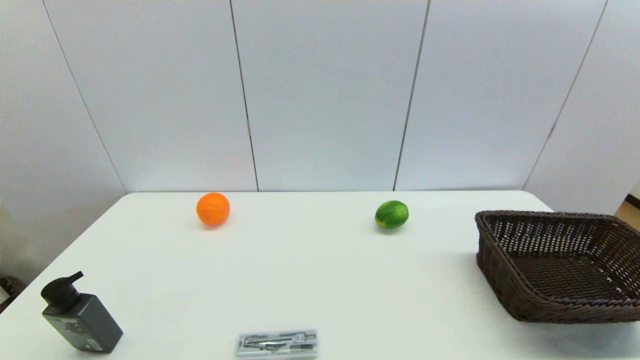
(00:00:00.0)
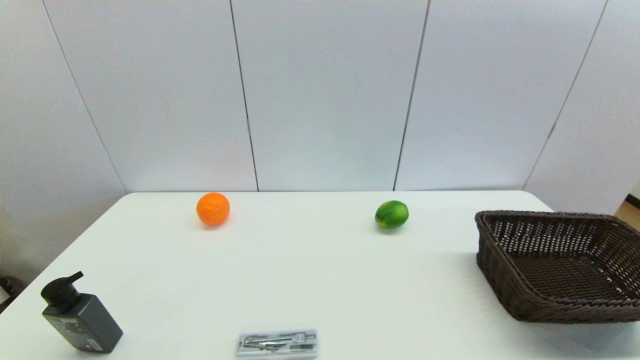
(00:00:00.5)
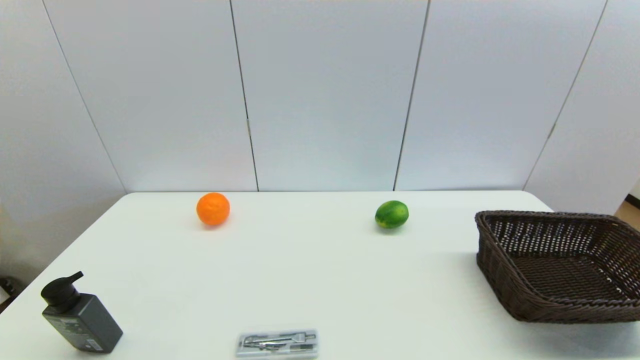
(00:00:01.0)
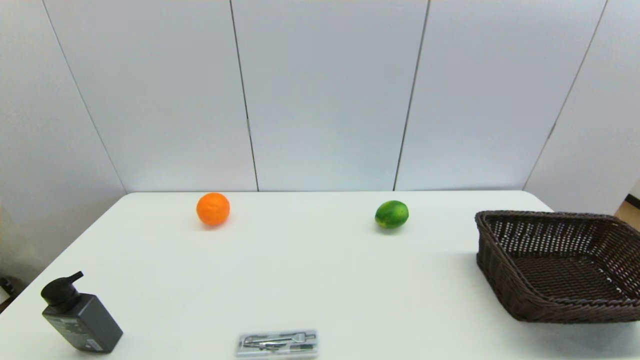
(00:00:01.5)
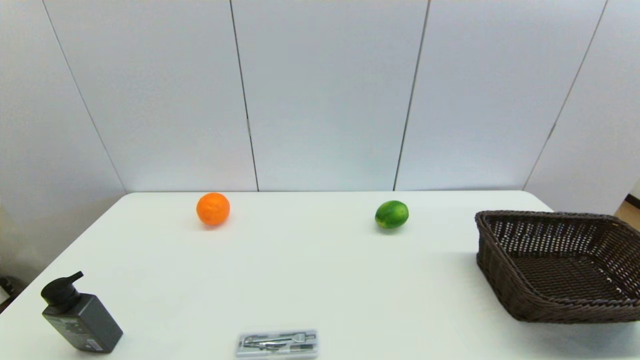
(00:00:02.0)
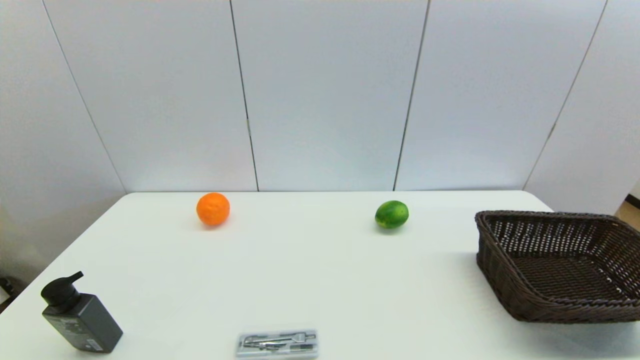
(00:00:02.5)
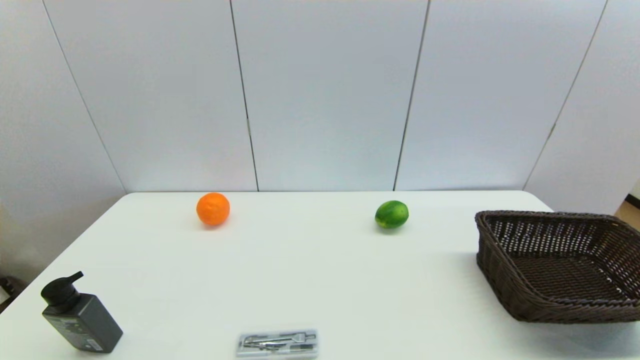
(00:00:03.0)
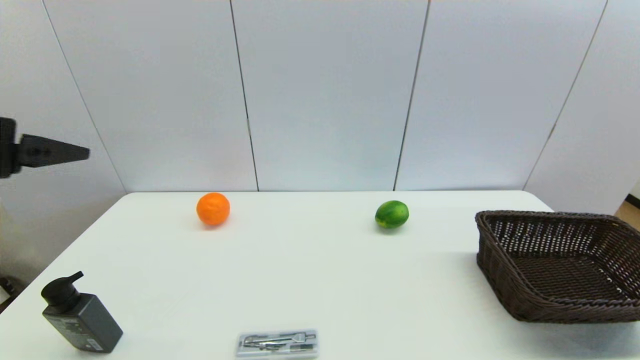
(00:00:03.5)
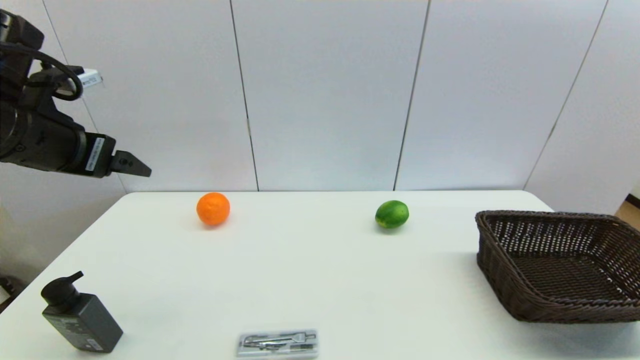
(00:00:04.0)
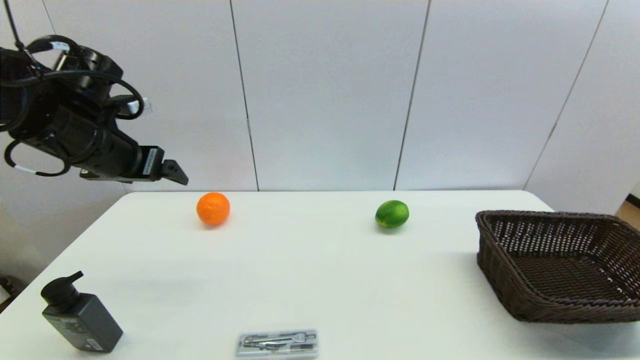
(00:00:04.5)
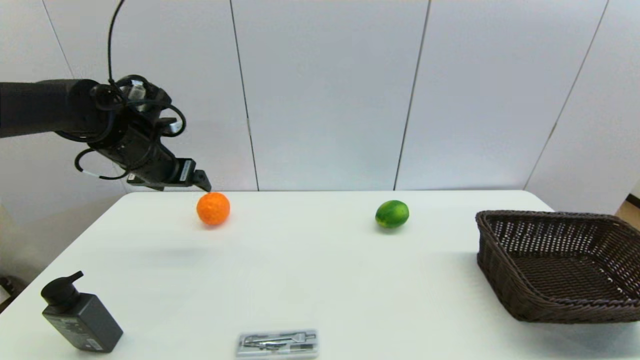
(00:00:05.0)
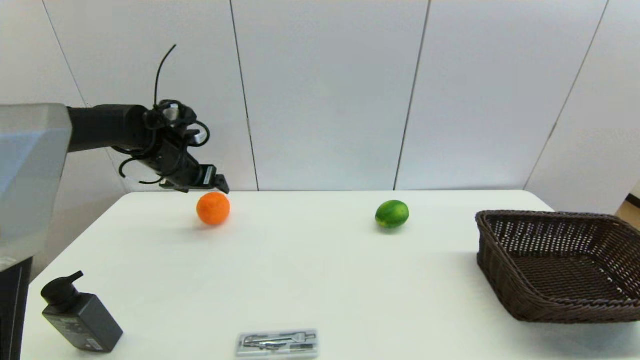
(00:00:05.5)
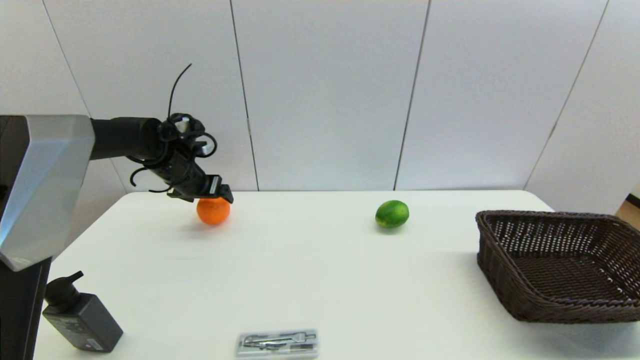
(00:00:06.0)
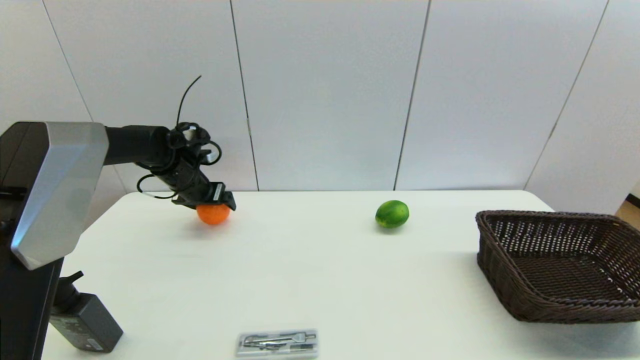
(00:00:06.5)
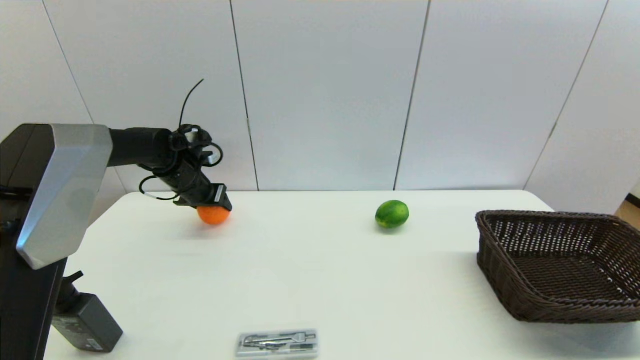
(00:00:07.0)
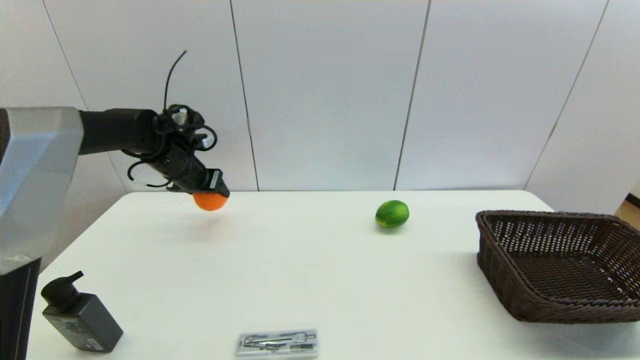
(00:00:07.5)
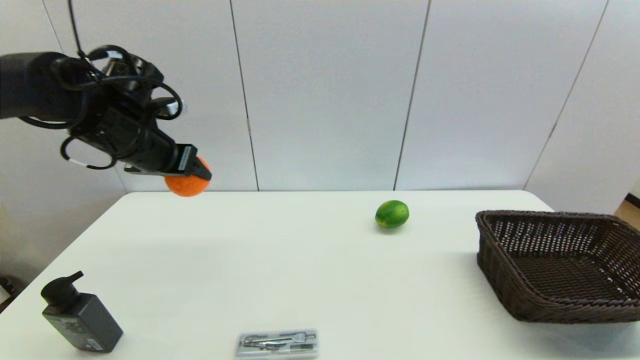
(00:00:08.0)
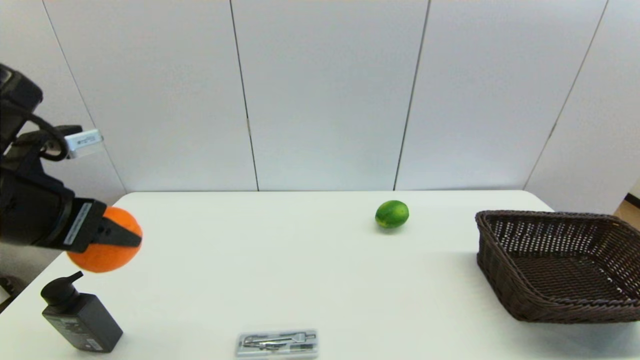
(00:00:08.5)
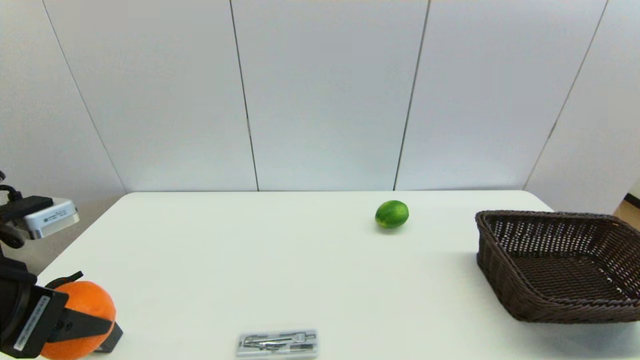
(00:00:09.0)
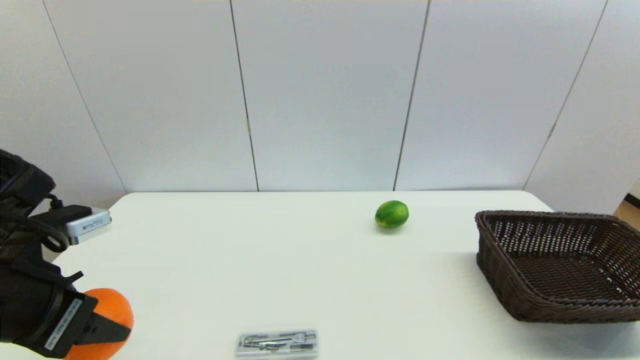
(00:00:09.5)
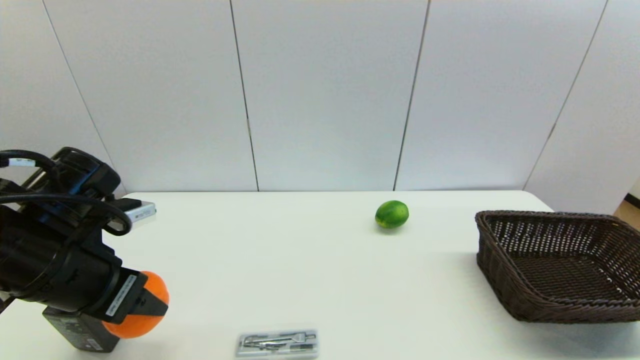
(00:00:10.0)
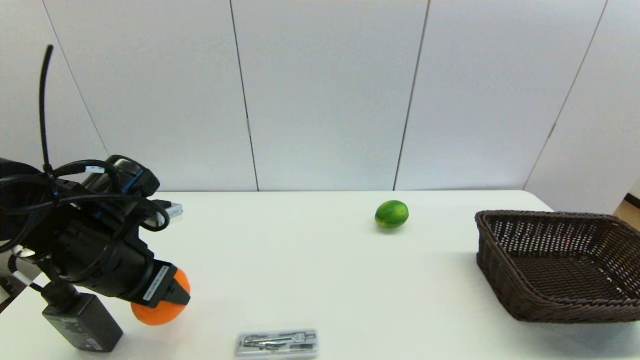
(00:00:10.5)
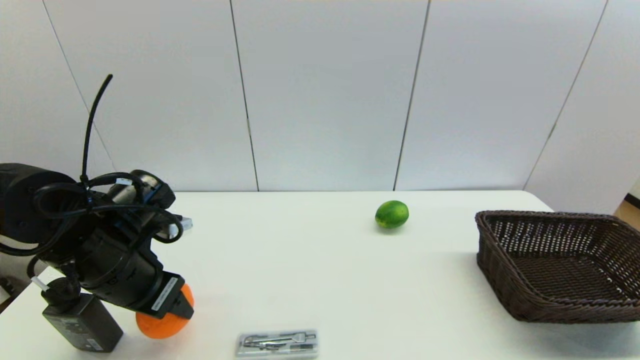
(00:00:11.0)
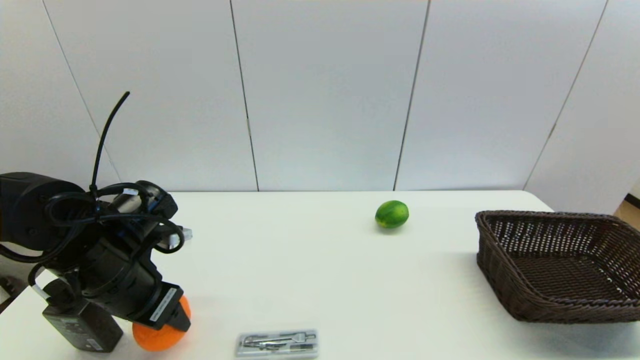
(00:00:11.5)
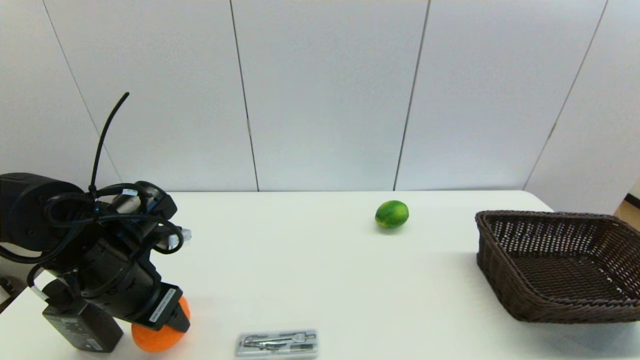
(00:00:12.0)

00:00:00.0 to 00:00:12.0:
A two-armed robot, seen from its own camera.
Step, 00:00:03.5 to 00:00:06.5: Grasp the orange with left gripper.
00:00:02.0 to 00:00:04.0: The left gripper travels forward and upward by some 35 cm.
00:00:04.0 to 00:00:06.0: The left gripper shifts approximately 25 cm forward and downward.
00:00:06.0 to 00:00:08.0: The left gripper is displaced upward and backward by roughly 15 cm, and closes its fingers.
00:00:08.0 to 00:00:10.0: The left gripper goes some 15 cm backward and downward.
00:00:10.0 to 00:00:12.0: The left gripper is displaced downward by about 5 cm.

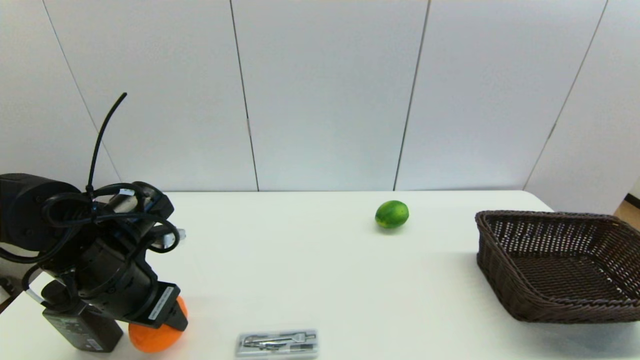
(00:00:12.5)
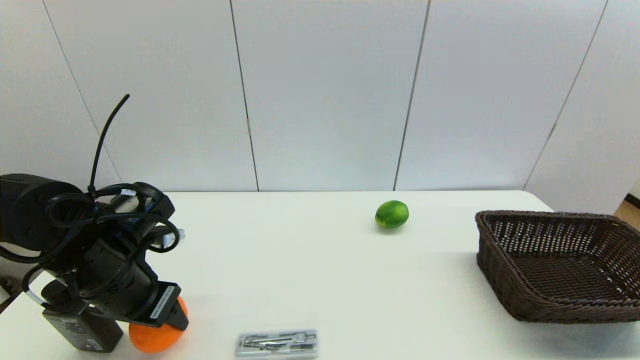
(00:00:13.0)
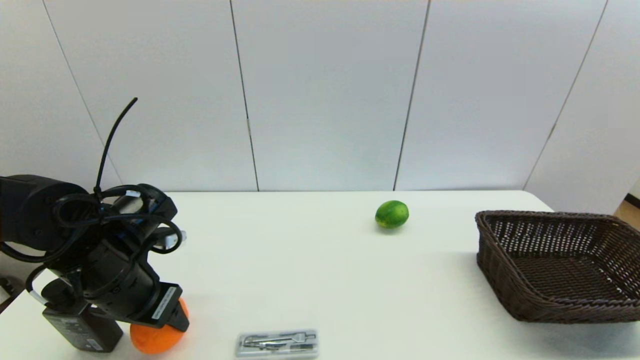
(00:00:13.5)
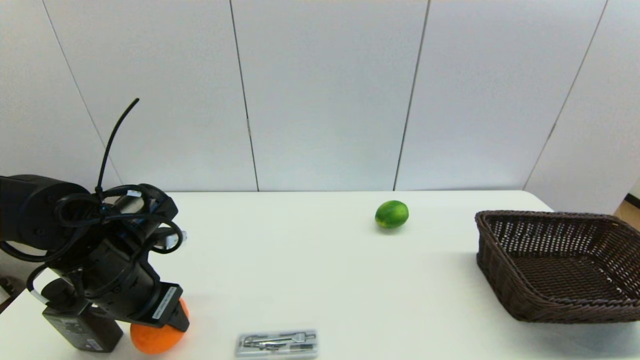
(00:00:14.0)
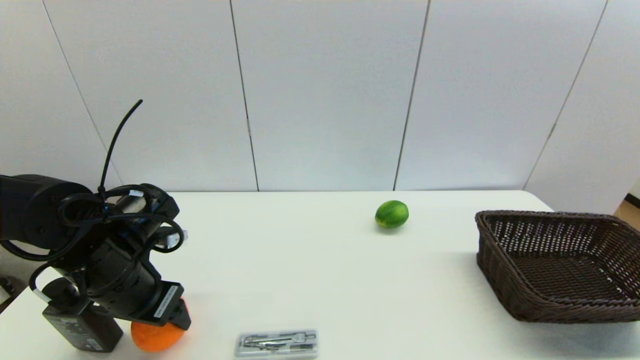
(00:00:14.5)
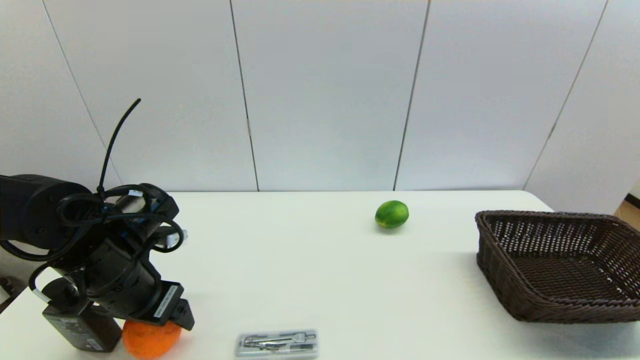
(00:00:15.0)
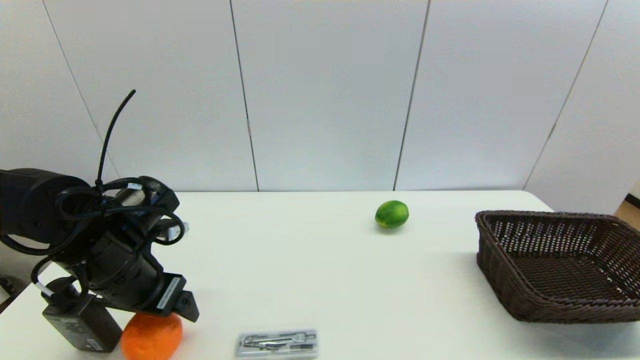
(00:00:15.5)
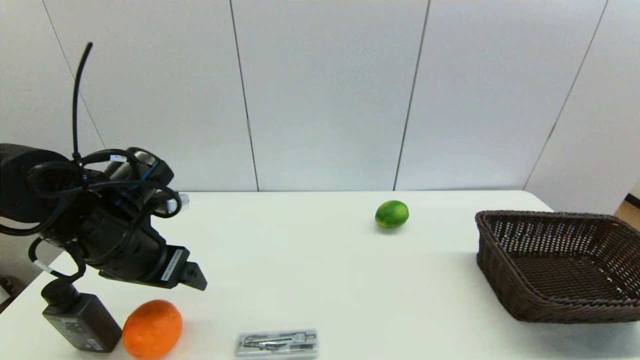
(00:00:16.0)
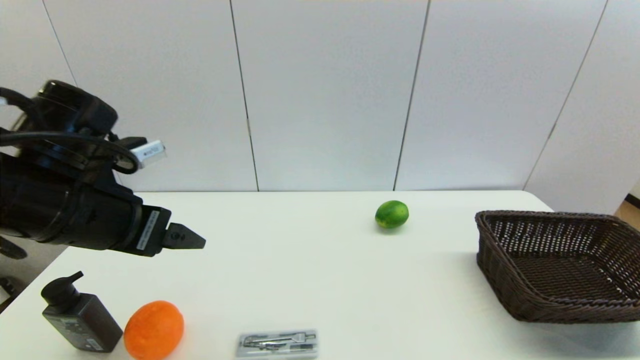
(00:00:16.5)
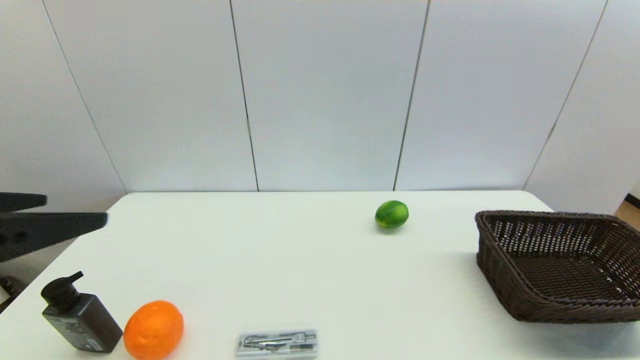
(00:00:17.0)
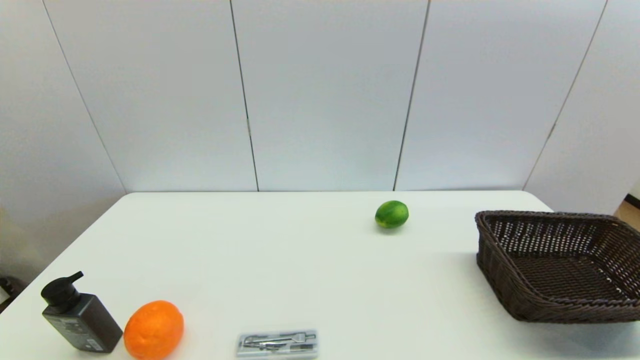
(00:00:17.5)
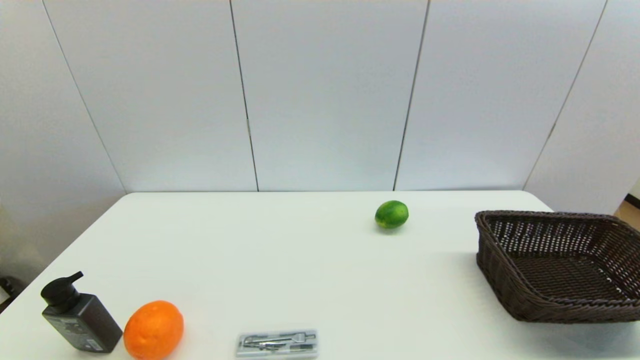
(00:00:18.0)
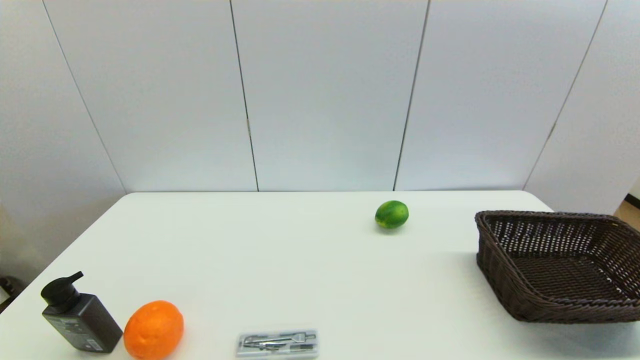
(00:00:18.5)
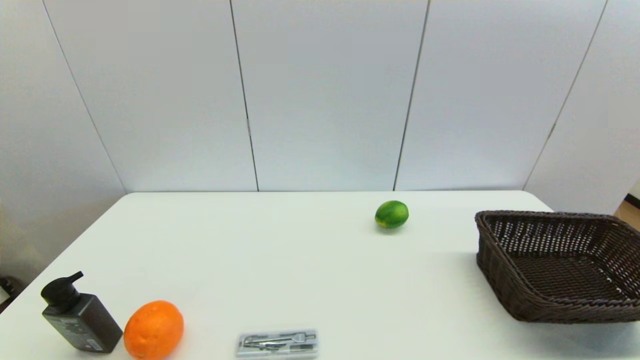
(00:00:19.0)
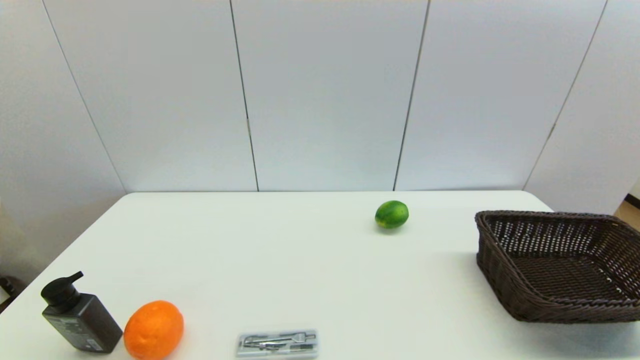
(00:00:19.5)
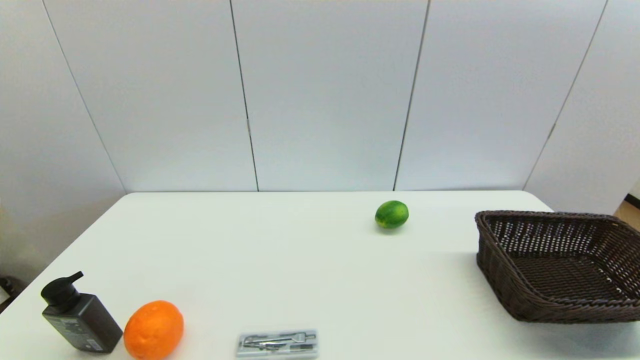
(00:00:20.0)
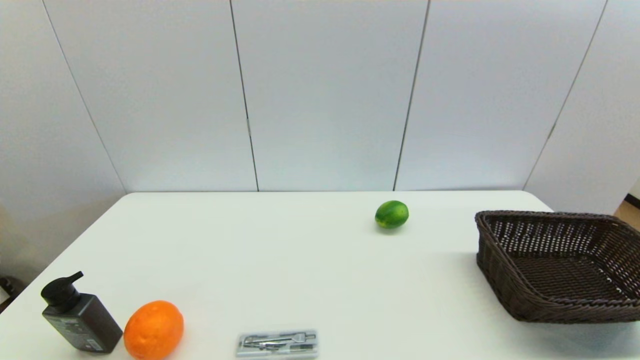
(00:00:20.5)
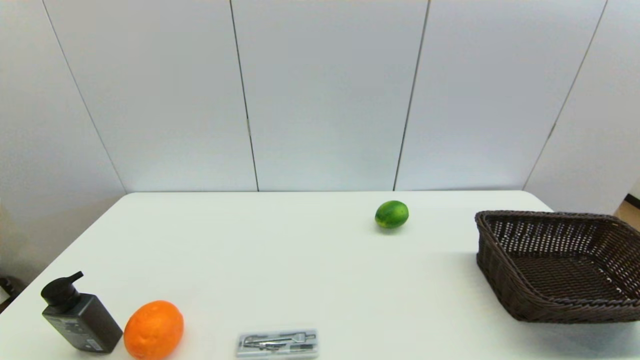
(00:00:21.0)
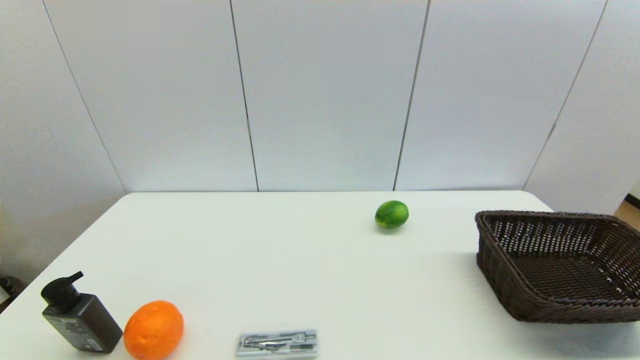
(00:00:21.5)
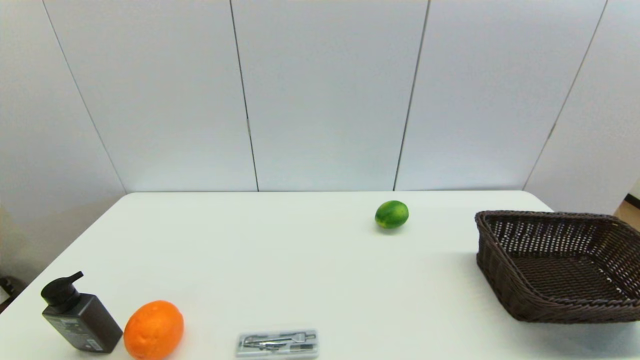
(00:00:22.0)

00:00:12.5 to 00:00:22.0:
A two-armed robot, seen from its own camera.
Step, 00:00:12.5 to 00:00:15.0: Place the orange on the table with left gripper.
00:00:12.5 to 00:00:14.5: Both grippers stay about where they are.
00:00:14.5 to 00:00:16.5: The left gripper goes some 10 cm upward, and opens up.
00:00:16.5 to 00:00:18.0: The left gripper is displaced backward by approximately 30 cm.
00:00:20.0 to 00:00:22.0: The two grippers keep their place.
